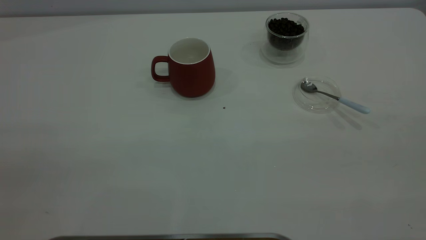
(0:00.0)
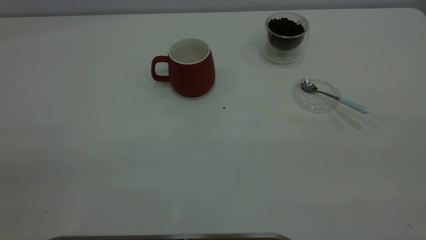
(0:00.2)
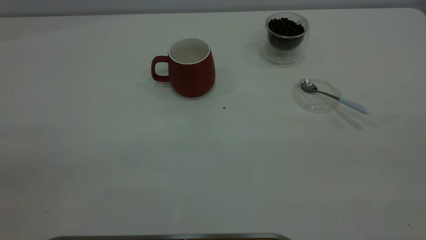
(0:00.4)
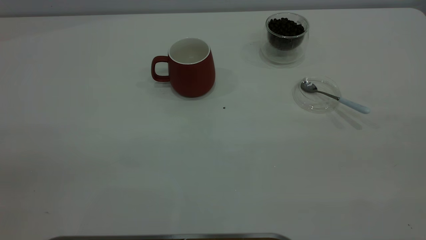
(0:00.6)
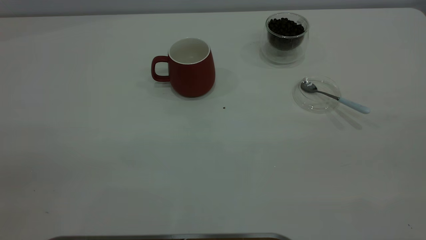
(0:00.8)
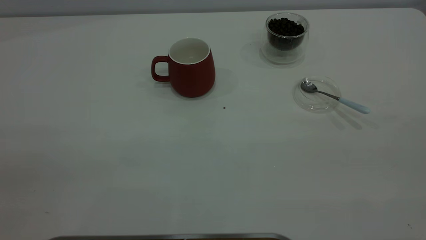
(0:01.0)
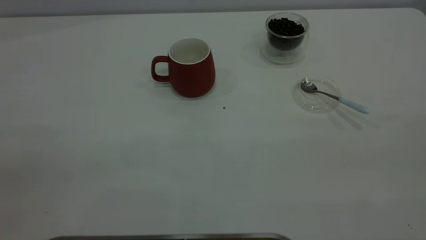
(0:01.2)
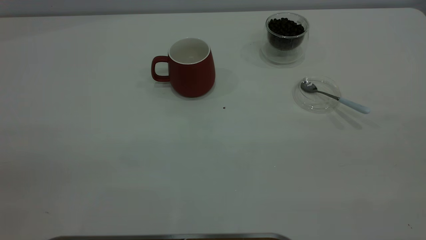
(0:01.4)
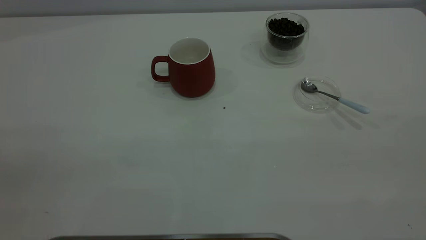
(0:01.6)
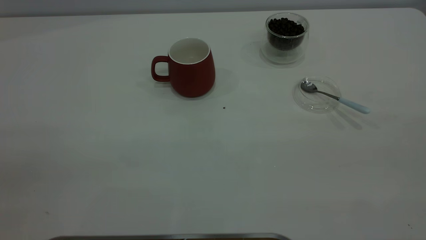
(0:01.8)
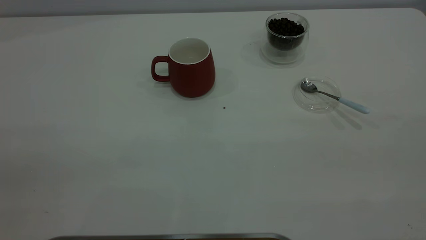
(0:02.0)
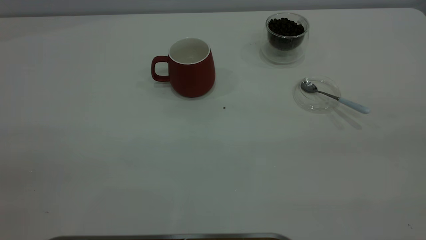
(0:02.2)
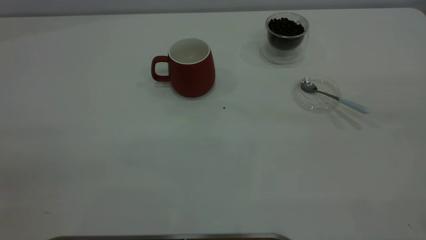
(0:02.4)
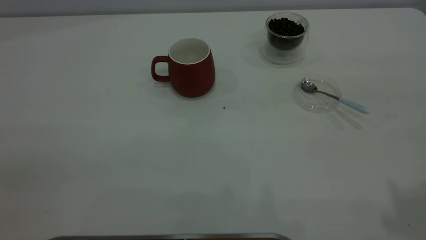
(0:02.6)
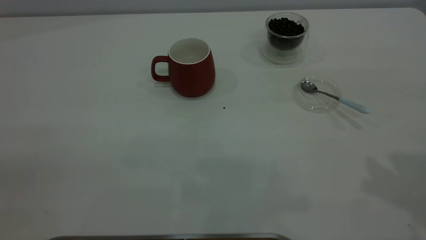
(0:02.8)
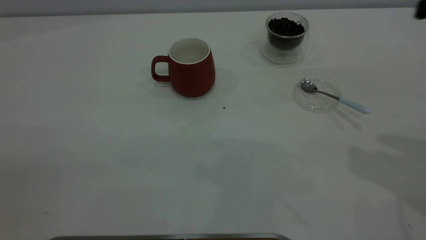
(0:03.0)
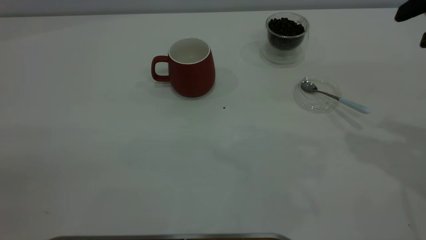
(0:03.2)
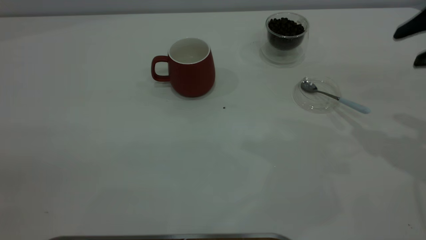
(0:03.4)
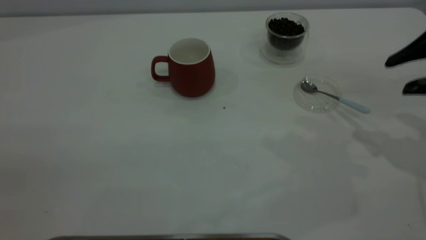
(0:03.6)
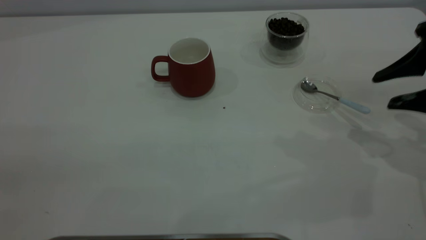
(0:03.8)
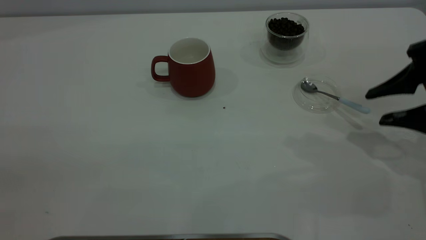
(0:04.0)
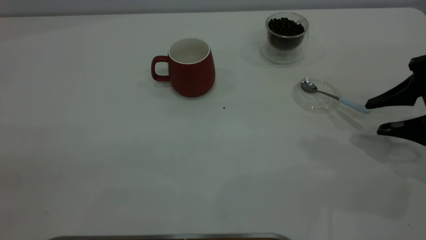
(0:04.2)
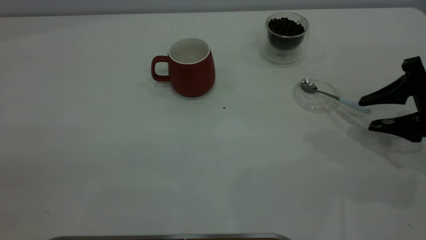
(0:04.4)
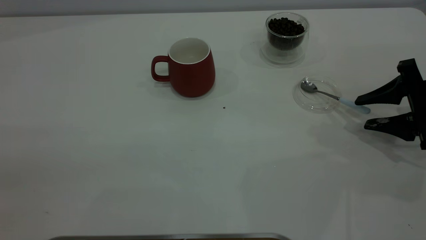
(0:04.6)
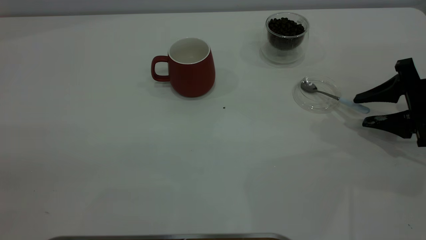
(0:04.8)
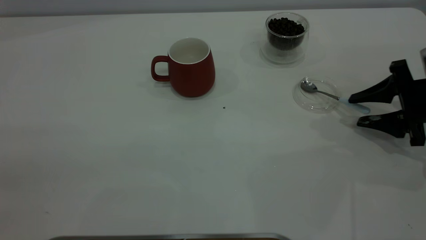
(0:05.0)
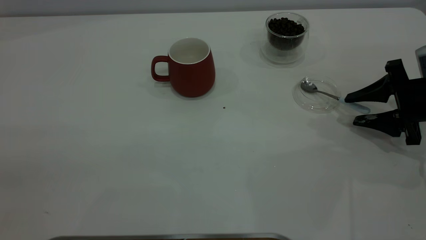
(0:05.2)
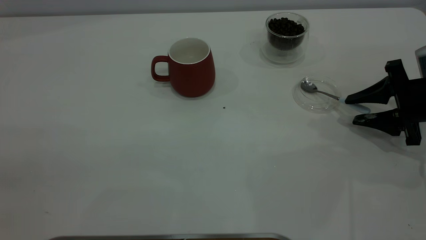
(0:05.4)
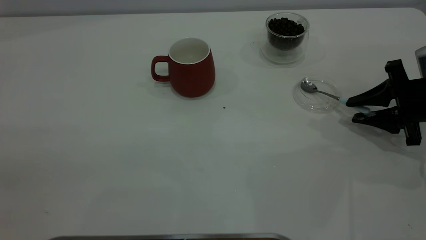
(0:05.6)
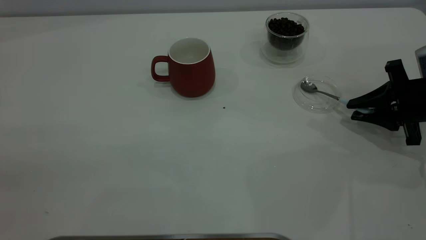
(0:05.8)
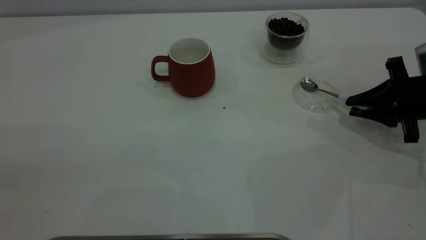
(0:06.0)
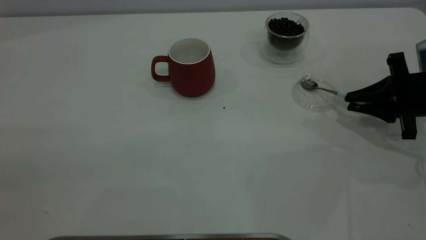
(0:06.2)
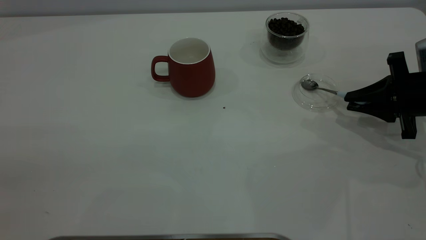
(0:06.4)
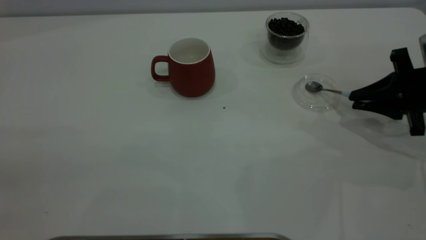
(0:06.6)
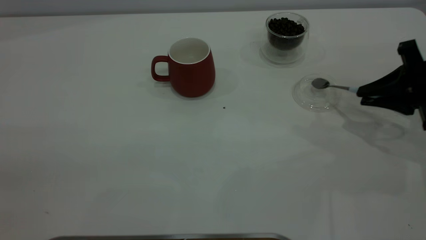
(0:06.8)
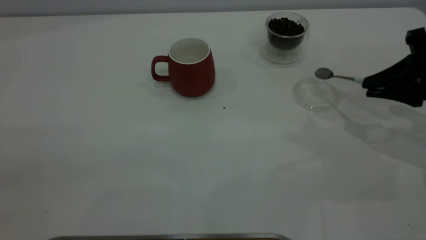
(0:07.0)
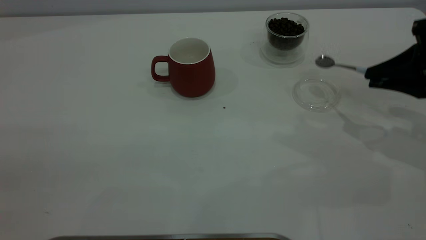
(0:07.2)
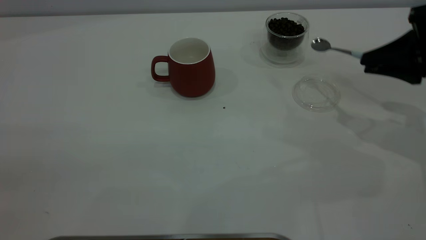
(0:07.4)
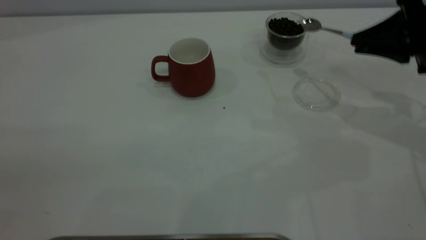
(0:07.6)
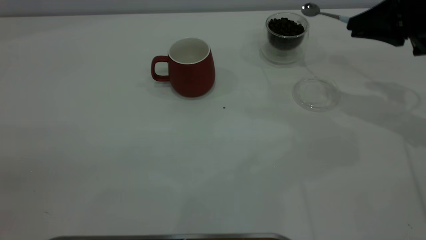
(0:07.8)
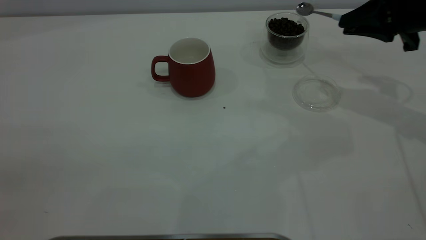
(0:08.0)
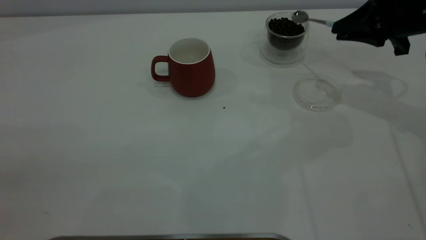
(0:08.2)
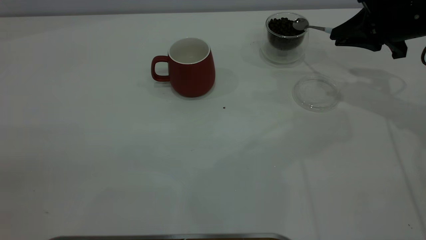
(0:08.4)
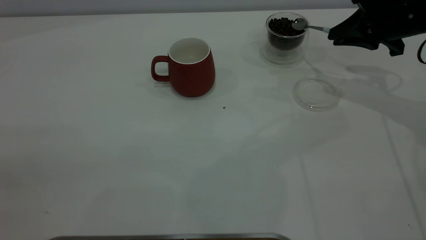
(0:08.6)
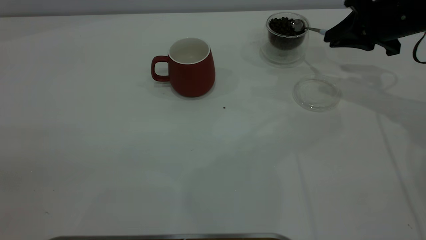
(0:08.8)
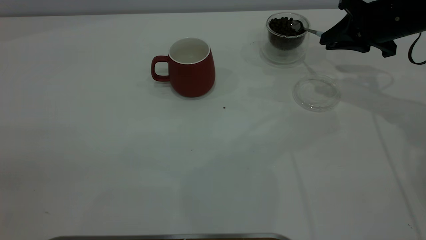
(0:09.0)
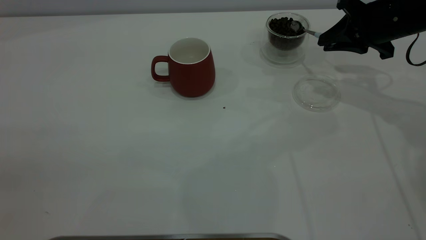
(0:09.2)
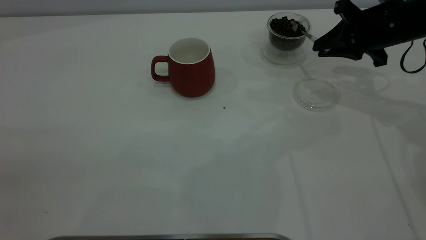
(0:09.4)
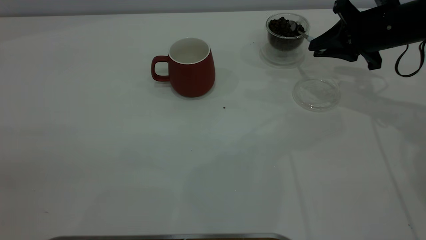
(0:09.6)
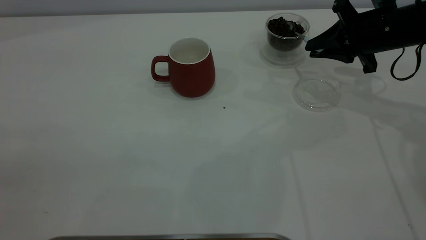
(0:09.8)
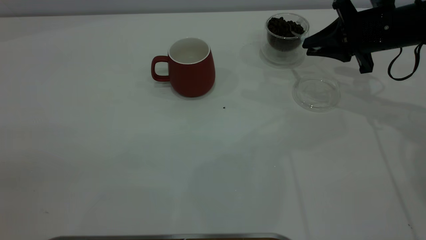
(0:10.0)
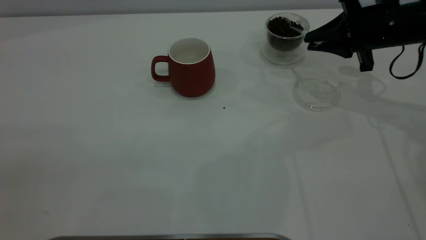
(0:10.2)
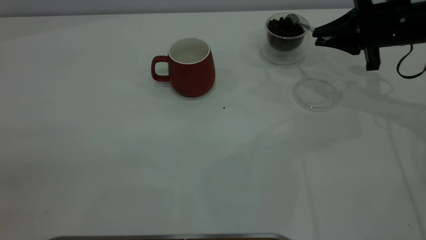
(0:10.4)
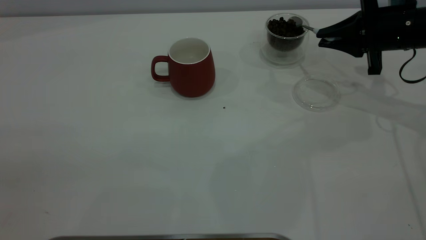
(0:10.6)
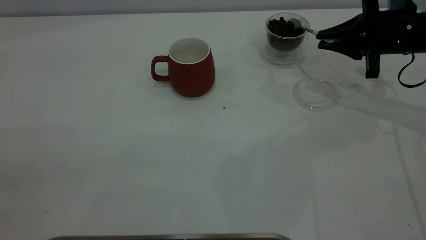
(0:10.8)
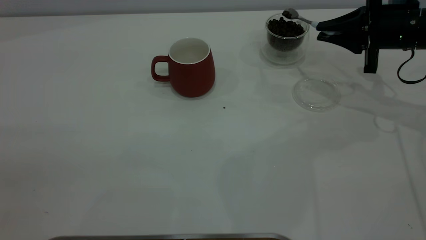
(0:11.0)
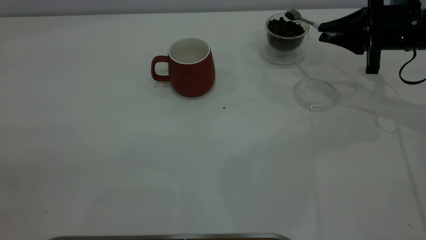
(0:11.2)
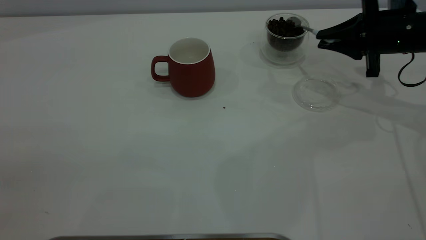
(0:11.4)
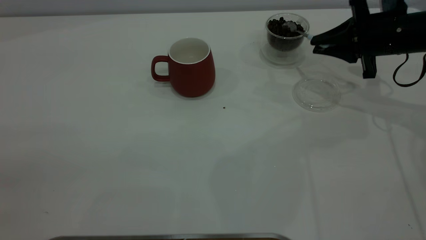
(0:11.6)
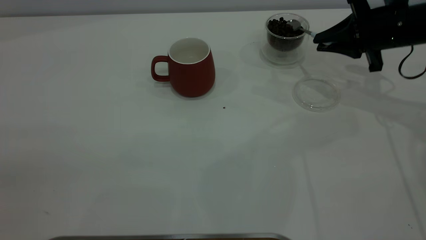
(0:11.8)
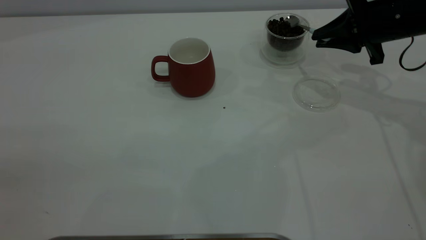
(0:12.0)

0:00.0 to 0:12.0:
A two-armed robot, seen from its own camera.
Task of the whole recording: the left gripper place the red cup in the center of the table, the right gripper take the blue spoon from the cup lid and scoop out the coffee beans from the coffee cup and put them into the red cup, the right gripper put the spoon back into the cup lid.
Step, 0:00.0 to 0:06.8: Pick up the spoon.
0:00.0 to 0:01.6: Both grippers stay about where they are.
0:03.0 to 0:04.4: The right gripper is displaced downward by about 20 cm.
0:04.4 to 0:06.0: The right gripper closes its fingers.
0:06.0 to 0:07.6: The right gripper travels upward by approximately 10 cm.
0:07.6 to 0:09.0: The right gripper shifts some 5 cm forward.
0:10.4 to 0:12.0: The grippers move only a little.

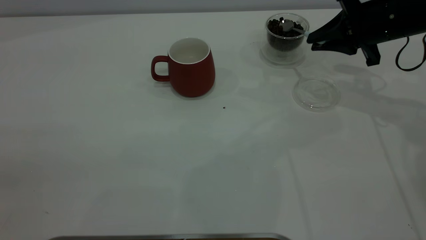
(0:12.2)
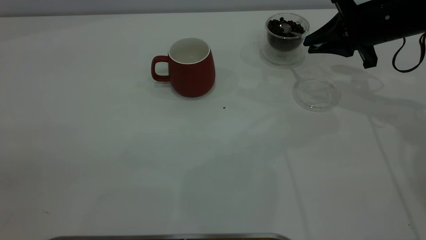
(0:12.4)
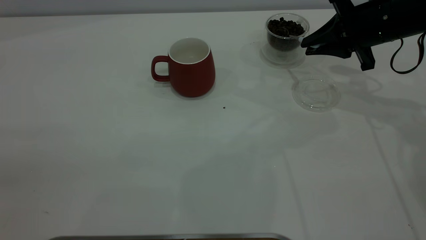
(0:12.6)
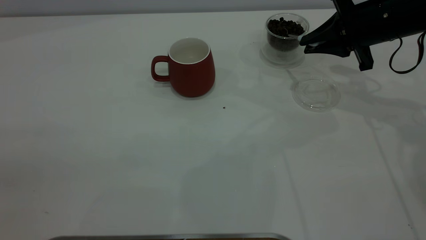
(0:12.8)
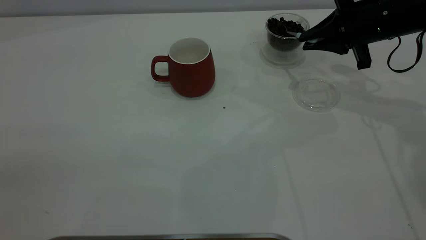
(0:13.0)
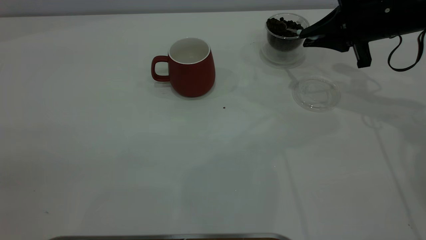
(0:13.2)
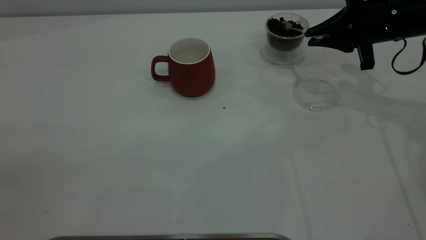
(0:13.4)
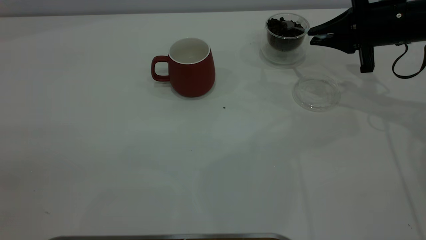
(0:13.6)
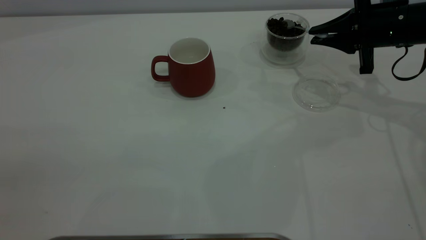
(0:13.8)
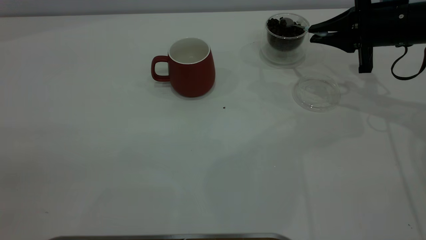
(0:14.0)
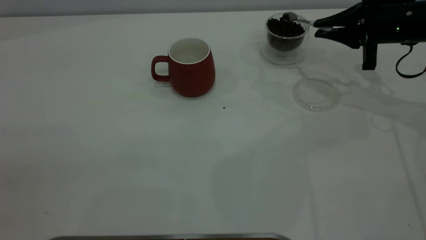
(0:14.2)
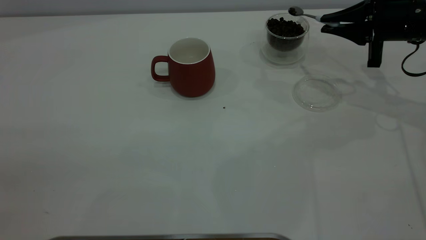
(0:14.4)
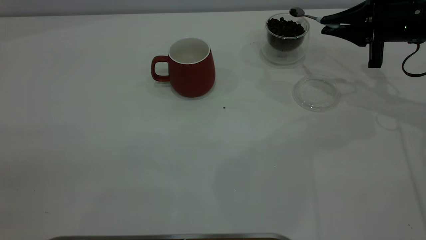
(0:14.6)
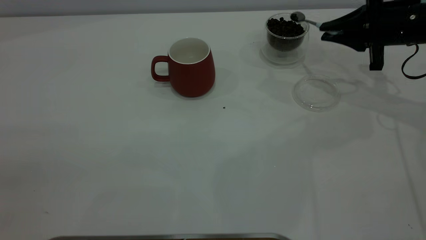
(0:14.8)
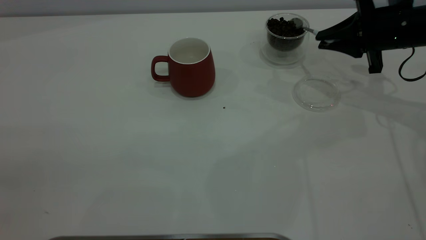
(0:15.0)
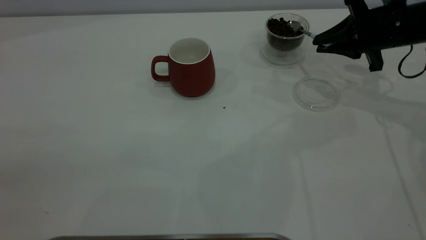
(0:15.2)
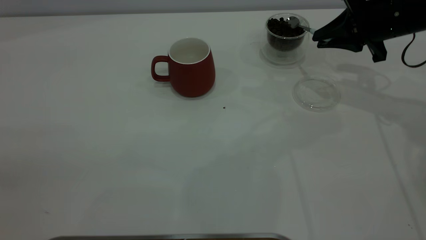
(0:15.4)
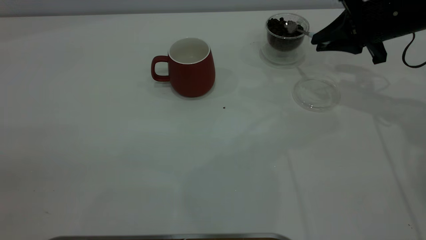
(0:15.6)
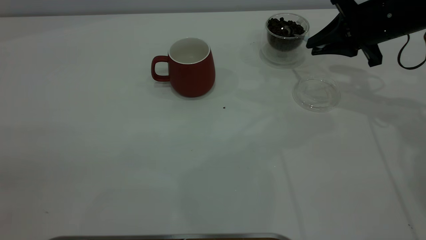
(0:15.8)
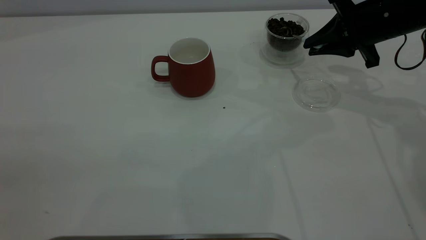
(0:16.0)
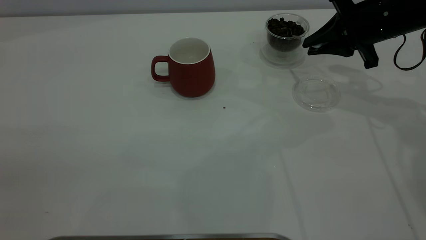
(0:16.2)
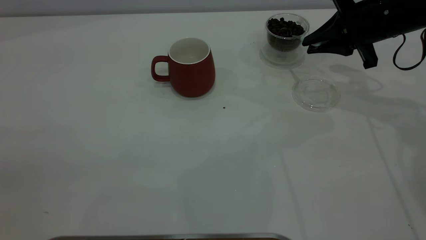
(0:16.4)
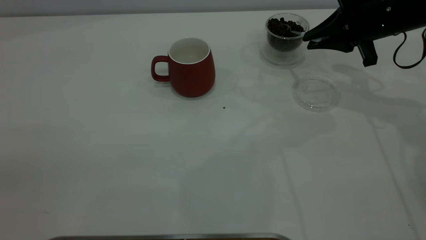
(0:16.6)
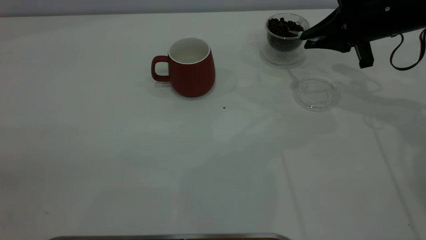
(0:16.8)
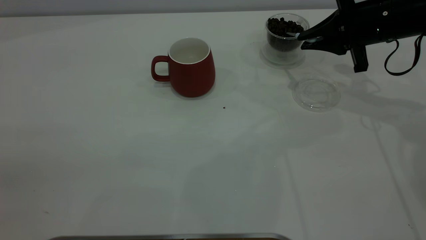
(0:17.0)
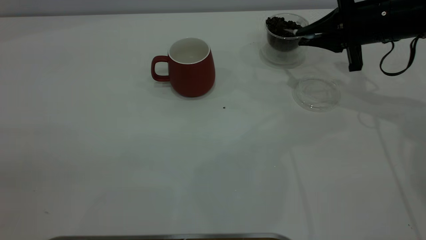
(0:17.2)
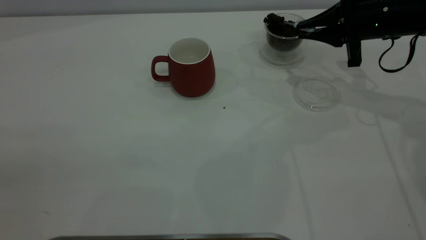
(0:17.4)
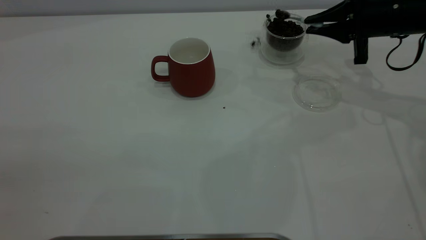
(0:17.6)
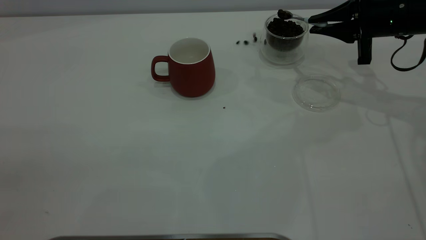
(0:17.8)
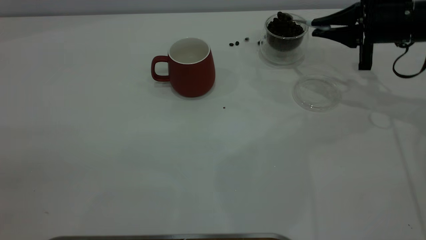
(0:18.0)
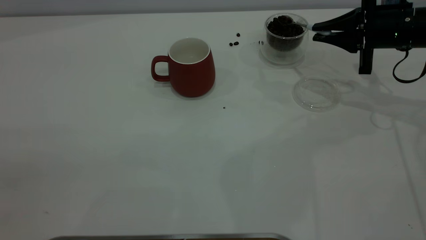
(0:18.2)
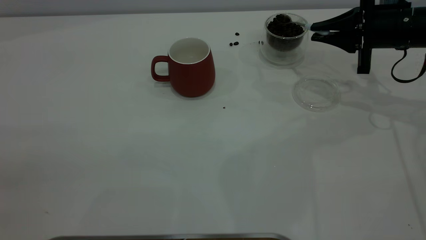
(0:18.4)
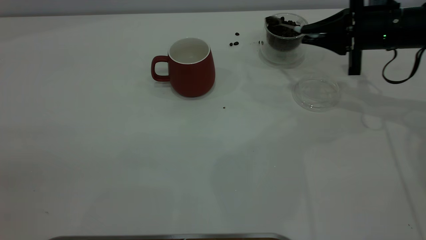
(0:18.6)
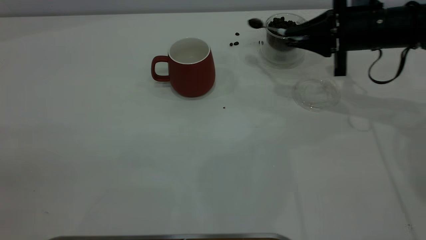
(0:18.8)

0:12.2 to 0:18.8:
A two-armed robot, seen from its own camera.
Task of the whole recording: the left gripper place the red cup in the center of the table, the right gripper take the blue spoon from the cup lid and scoop out the coffee beans from the coffee cup and put them into the red cup, the right gripper put the spoon back into the cup lid.
0:17.2 to 0:18.8: The grippers move only a little.
